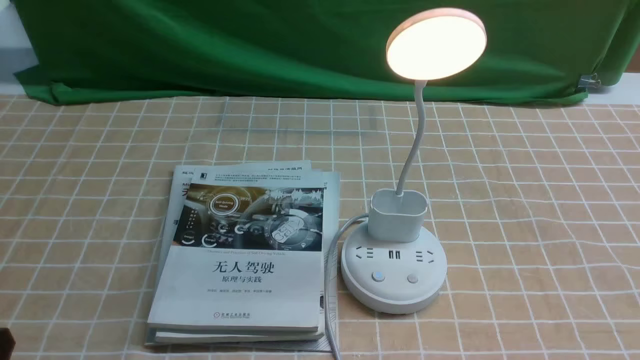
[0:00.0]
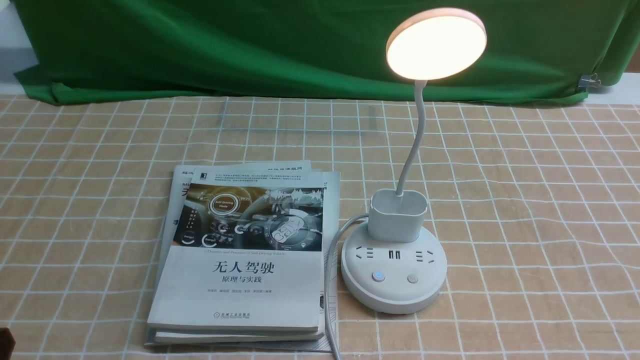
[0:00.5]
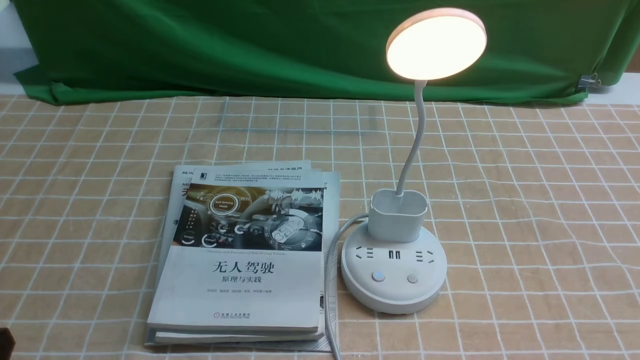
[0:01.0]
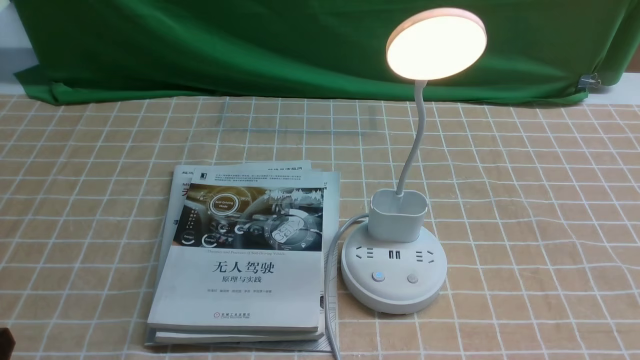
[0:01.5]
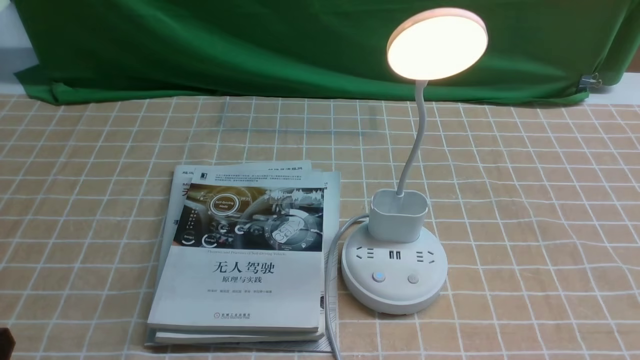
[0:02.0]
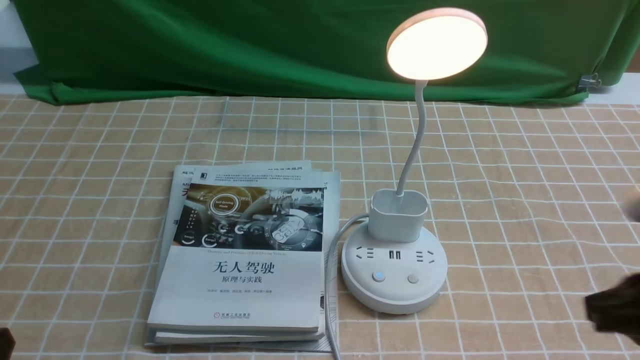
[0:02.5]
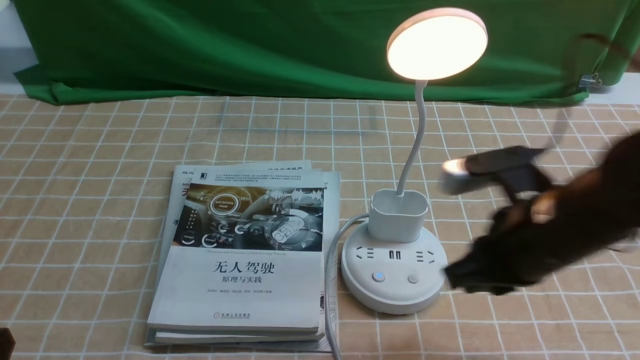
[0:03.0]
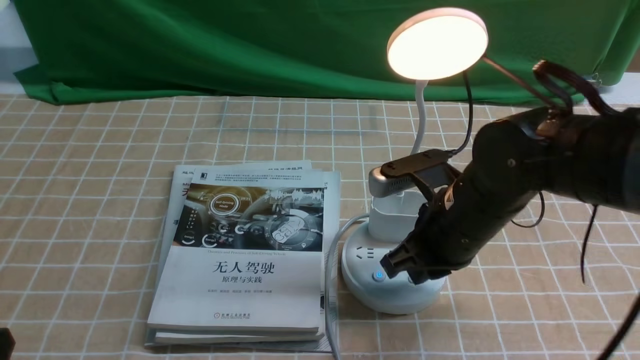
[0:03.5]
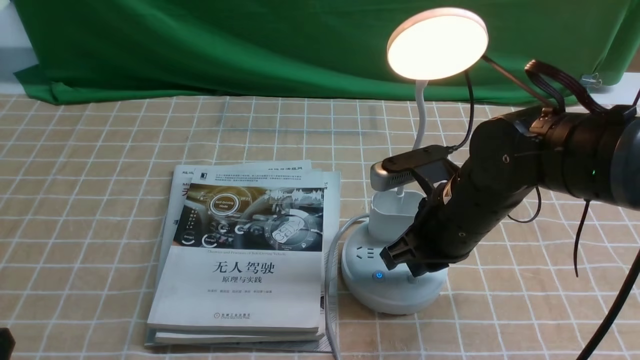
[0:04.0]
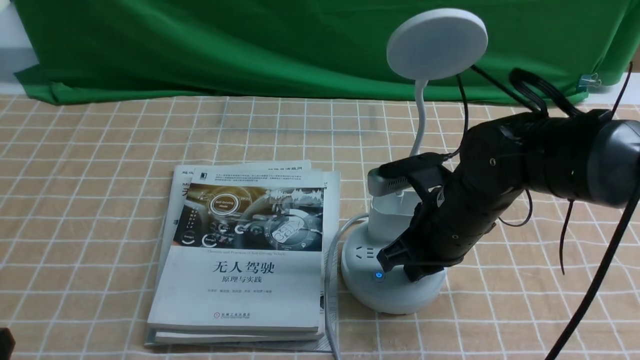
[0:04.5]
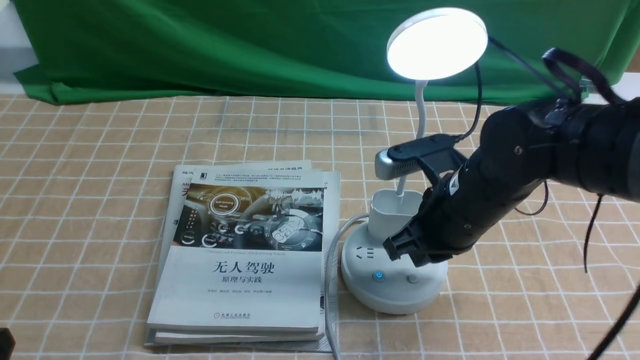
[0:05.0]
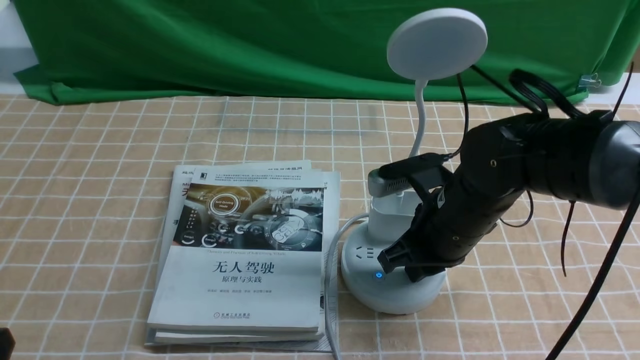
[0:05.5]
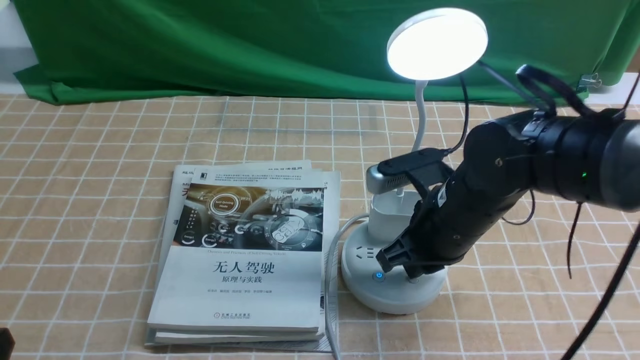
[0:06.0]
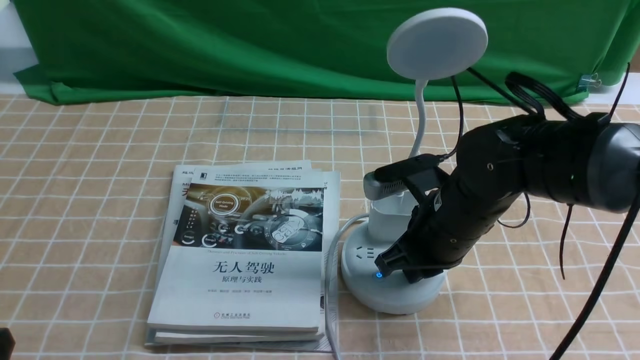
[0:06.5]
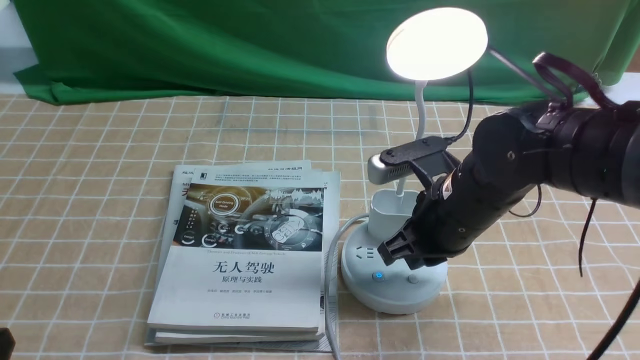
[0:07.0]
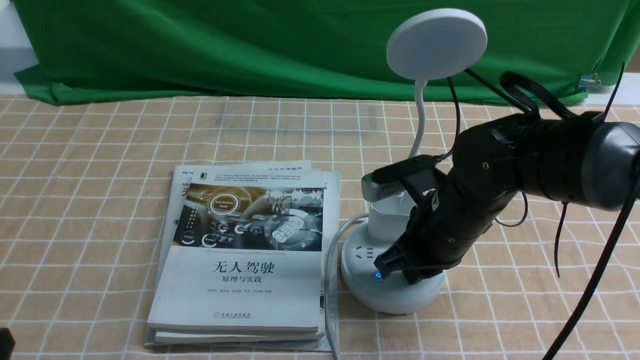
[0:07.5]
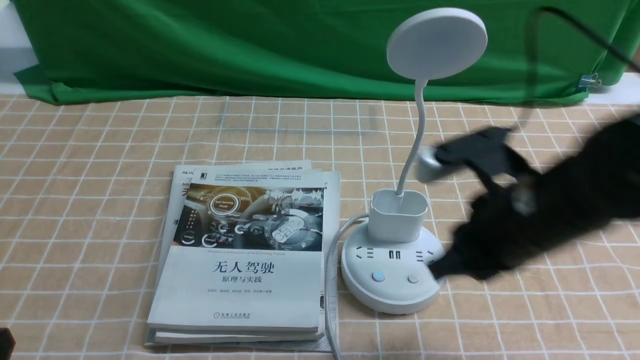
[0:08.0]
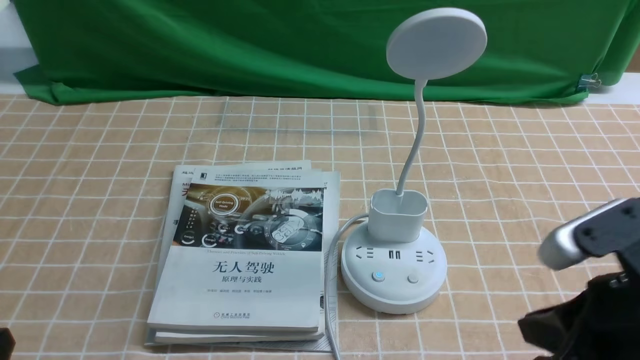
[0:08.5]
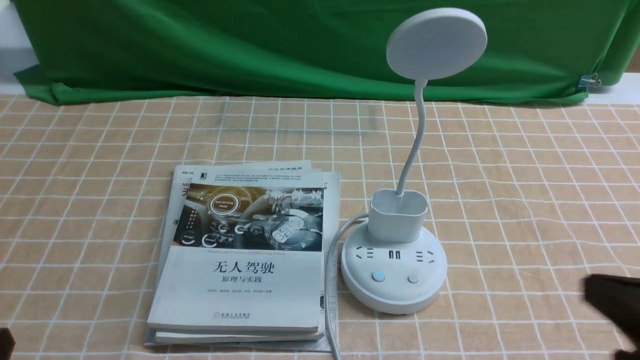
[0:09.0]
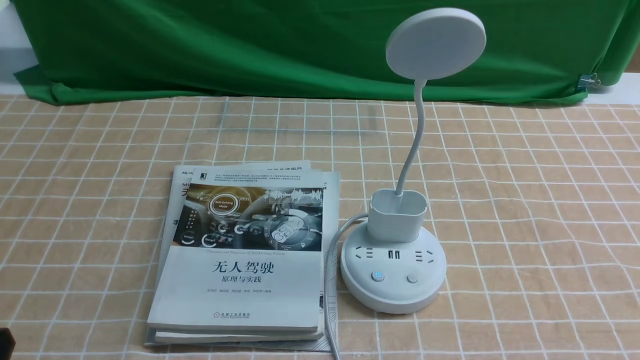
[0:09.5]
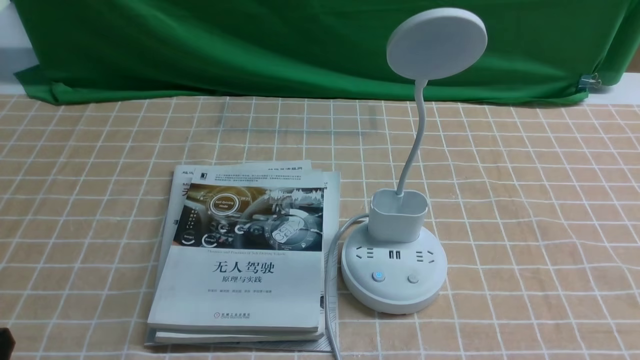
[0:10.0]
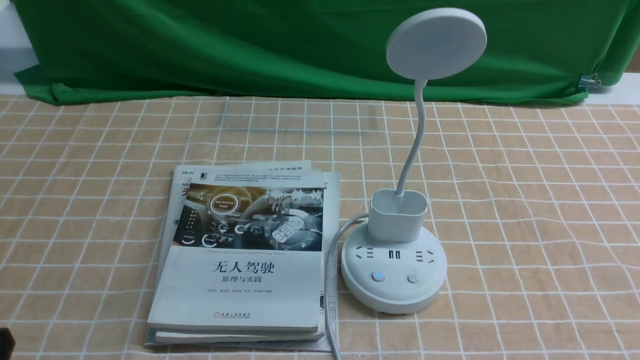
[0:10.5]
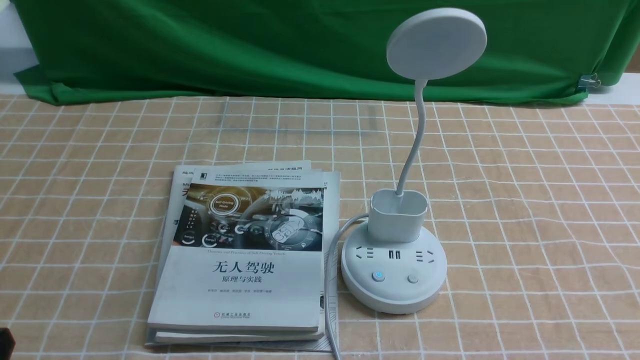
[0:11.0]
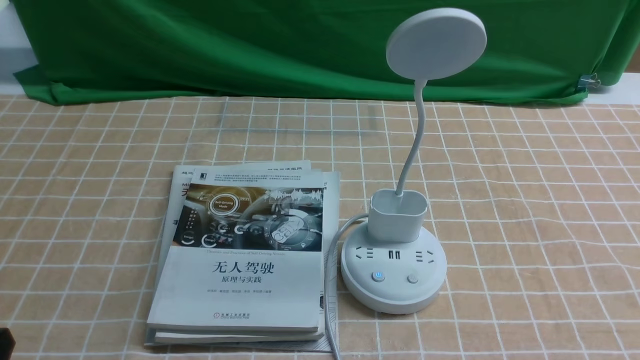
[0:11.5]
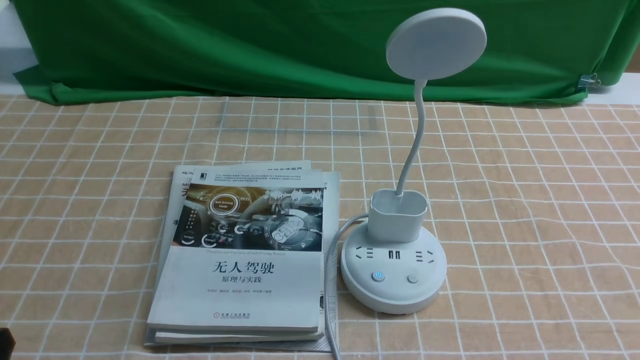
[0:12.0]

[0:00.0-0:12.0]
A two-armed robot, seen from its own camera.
Task of the whole recording: turn off the desk lamp on the light coffee tablecloth by hand.
Step, 0:00.0 to 0:07.5: use the right arm to press the button switch on the lamp holder.
0:02.0 to 0:04.0: The right gripper travels forward and to the left by approximately 30 cm.
0:04.0 to 0:06.0: Neither gripper changes place.
0:06.0 to 0:08.0: The right gripper travels backward and upward by approximately 10 cm.
0:08.0 to 0:10.0: The right gripper heads backward and to the right, covering approximately 20 cm.
